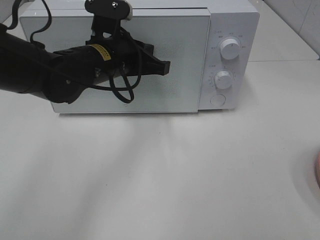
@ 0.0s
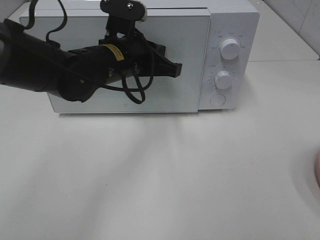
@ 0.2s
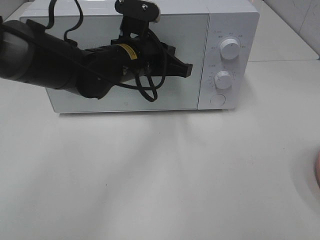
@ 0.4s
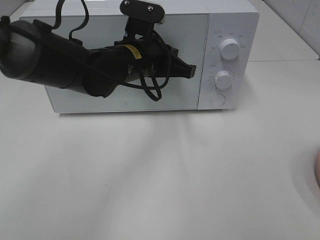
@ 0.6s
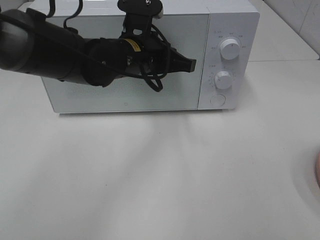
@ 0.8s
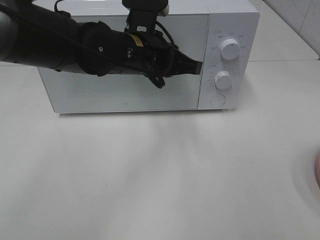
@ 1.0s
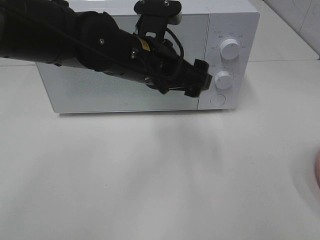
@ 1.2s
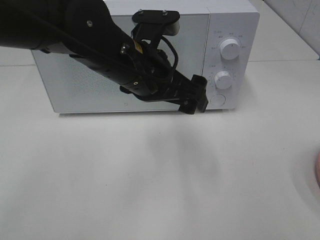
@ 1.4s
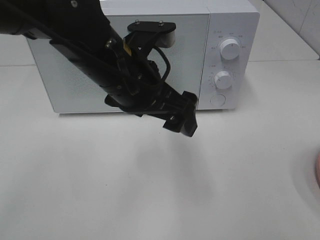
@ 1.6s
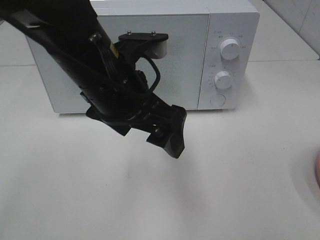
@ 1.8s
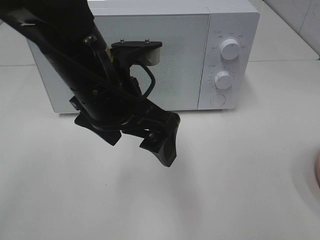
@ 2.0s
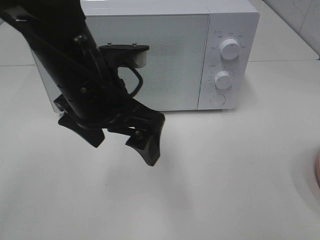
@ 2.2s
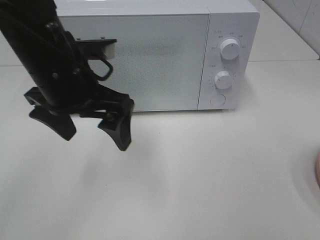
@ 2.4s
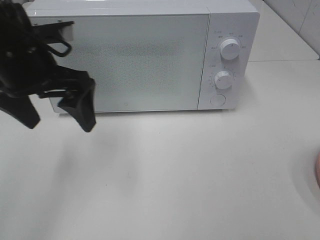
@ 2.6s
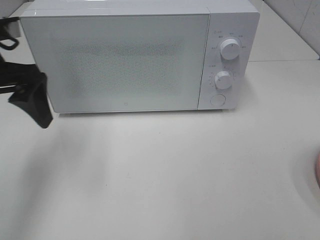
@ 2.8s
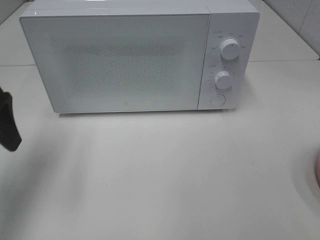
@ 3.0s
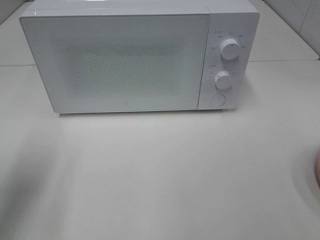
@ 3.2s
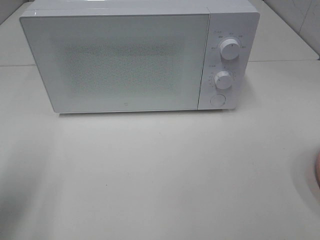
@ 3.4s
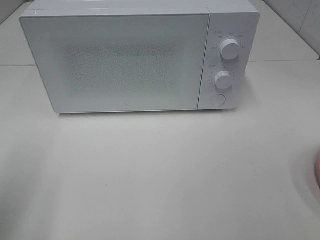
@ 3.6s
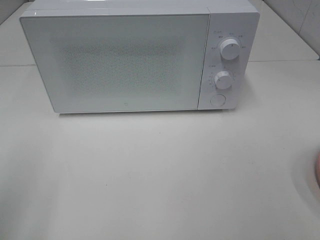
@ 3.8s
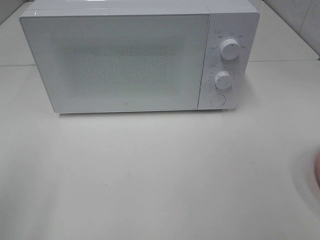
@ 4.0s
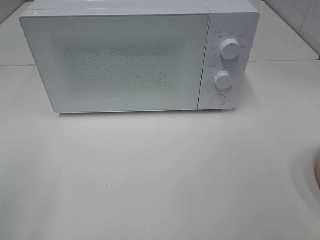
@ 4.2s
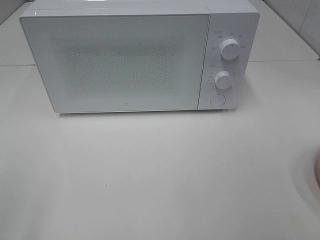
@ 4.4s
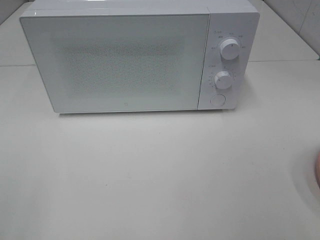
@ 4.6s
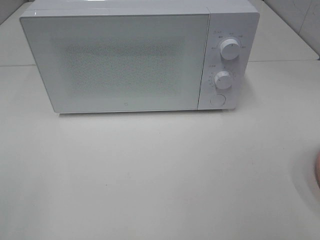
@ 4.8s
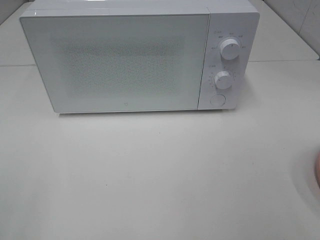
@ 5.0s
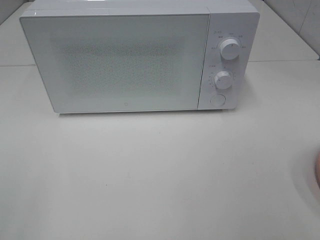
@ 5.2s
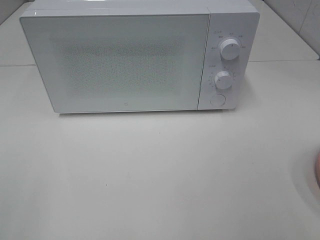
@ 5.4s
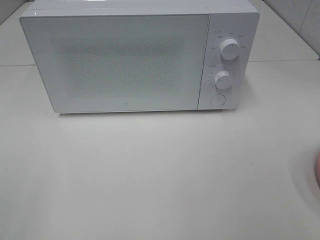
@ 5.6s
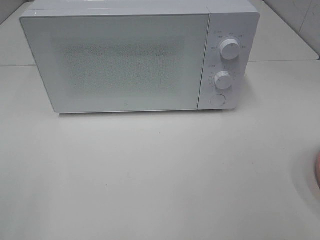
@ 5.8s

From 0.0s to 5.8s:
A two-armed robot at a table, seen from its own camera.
Task of the whole recording: Heat the burger.
From 0.0s to 1.4s: The left gripper is displaced backward by roughly 5 cm, and opens.
From 1.4s to 2.8s: The left gripper heads to the left, covering some 20 cm.
From 2.8s to 4.4s: The left gripper shifts approximately 25 cm backward.

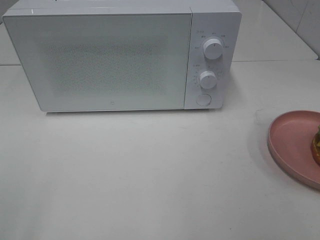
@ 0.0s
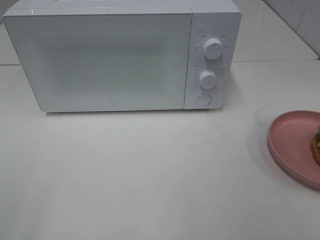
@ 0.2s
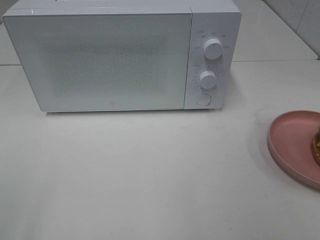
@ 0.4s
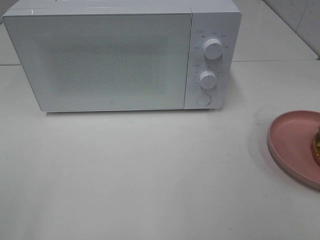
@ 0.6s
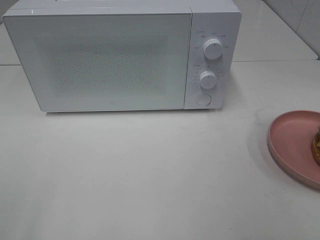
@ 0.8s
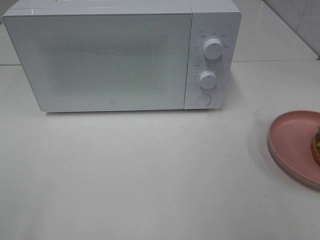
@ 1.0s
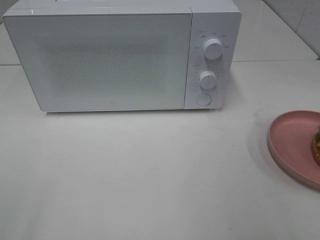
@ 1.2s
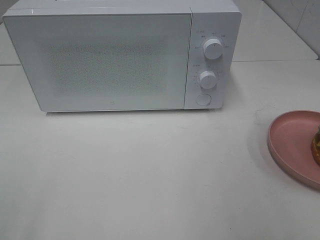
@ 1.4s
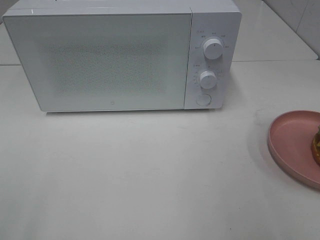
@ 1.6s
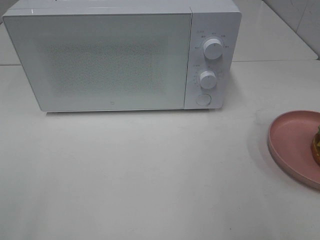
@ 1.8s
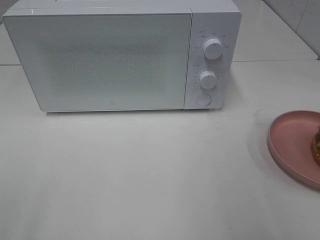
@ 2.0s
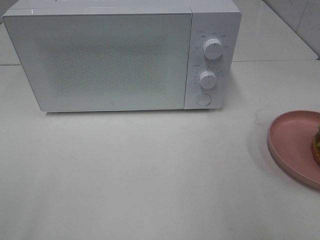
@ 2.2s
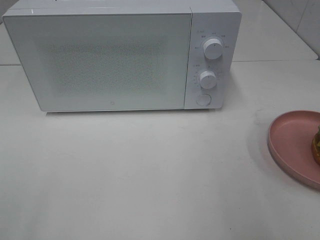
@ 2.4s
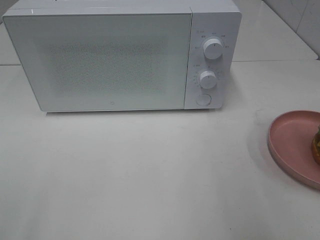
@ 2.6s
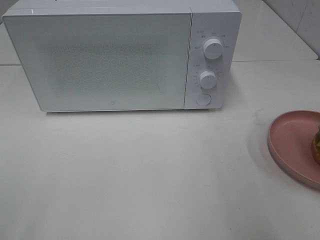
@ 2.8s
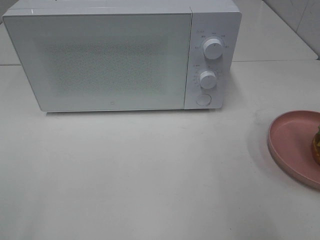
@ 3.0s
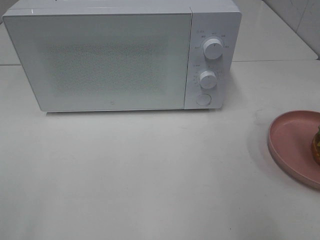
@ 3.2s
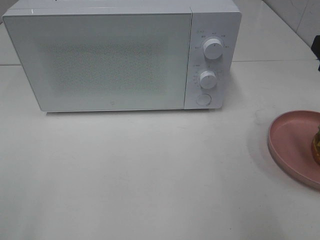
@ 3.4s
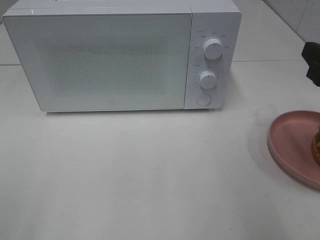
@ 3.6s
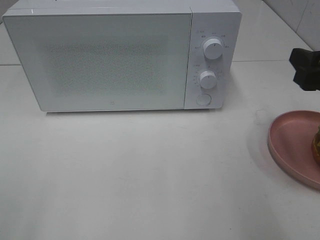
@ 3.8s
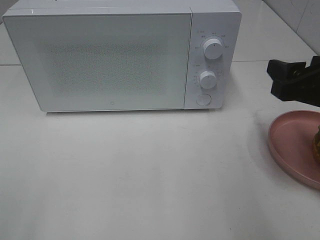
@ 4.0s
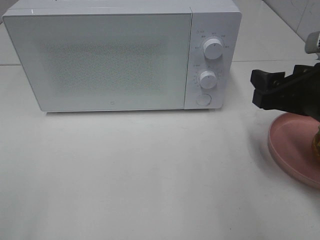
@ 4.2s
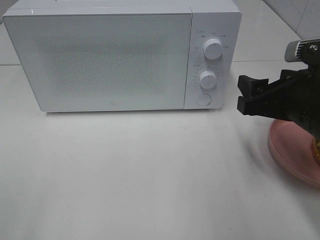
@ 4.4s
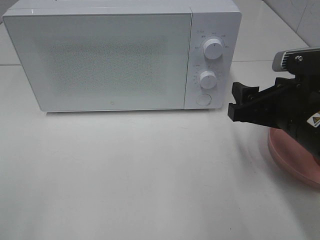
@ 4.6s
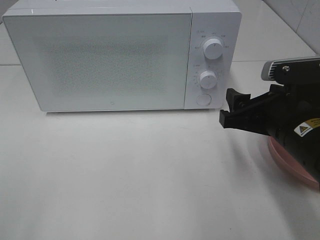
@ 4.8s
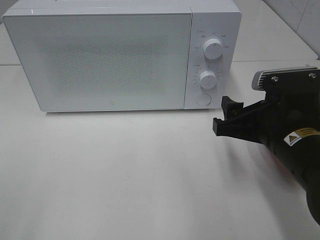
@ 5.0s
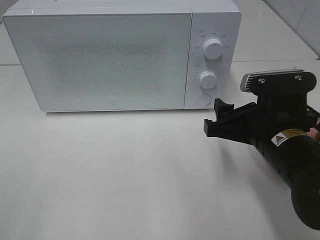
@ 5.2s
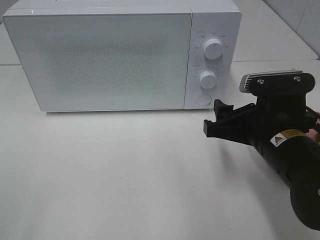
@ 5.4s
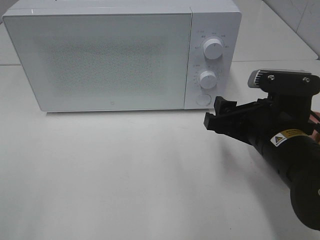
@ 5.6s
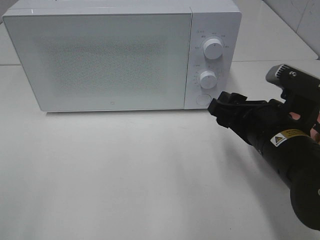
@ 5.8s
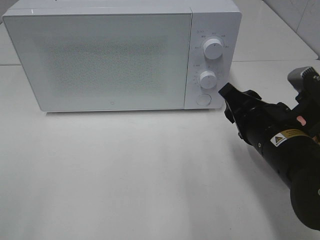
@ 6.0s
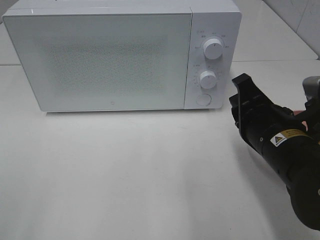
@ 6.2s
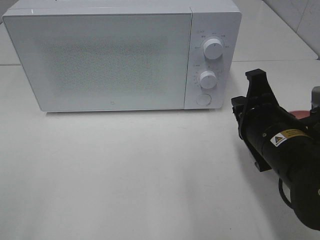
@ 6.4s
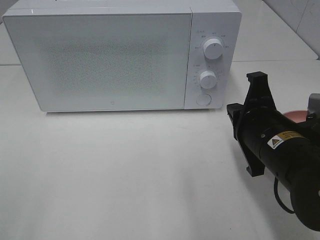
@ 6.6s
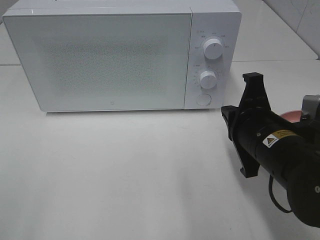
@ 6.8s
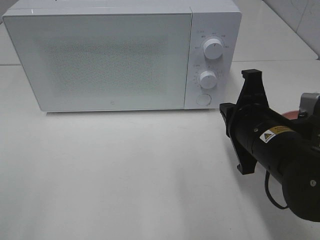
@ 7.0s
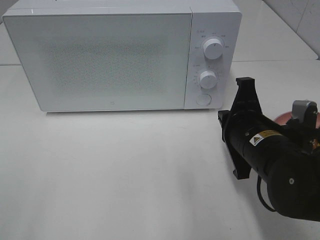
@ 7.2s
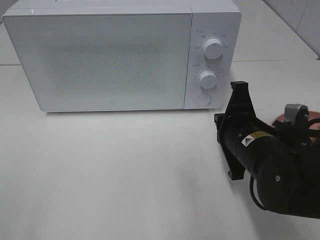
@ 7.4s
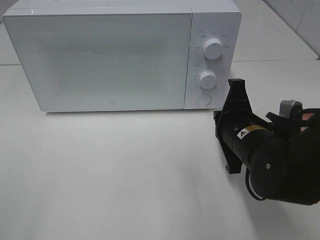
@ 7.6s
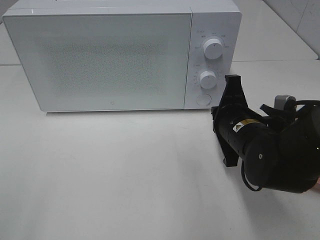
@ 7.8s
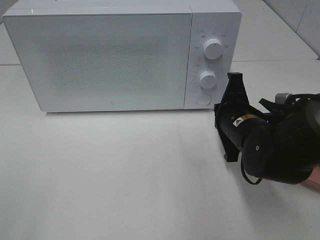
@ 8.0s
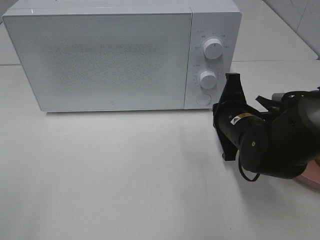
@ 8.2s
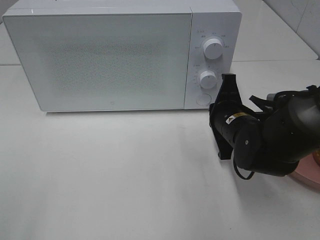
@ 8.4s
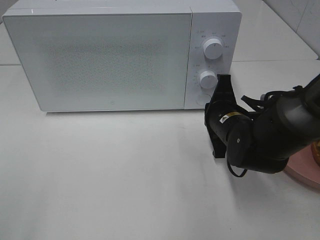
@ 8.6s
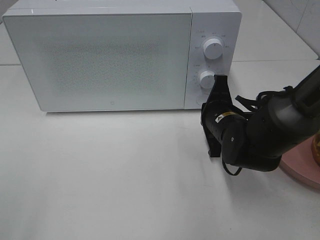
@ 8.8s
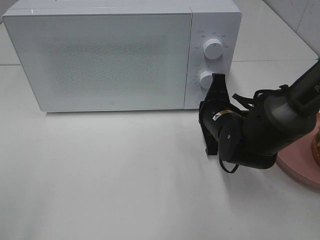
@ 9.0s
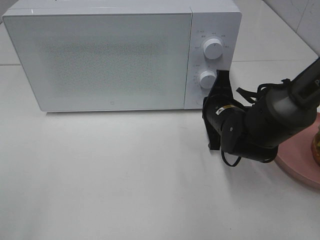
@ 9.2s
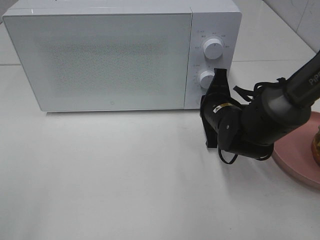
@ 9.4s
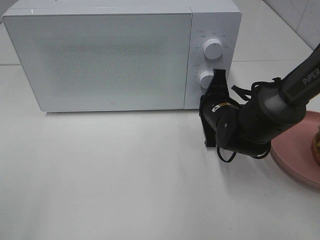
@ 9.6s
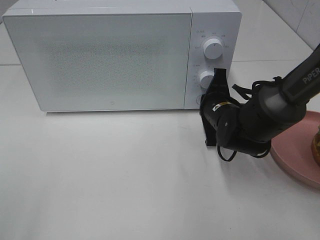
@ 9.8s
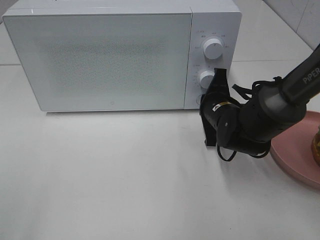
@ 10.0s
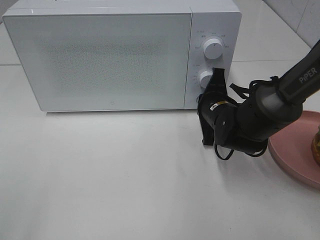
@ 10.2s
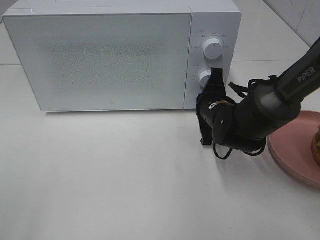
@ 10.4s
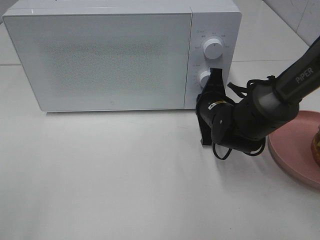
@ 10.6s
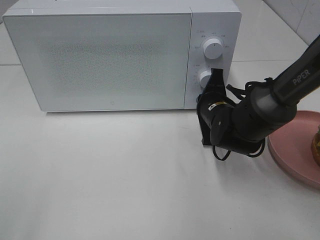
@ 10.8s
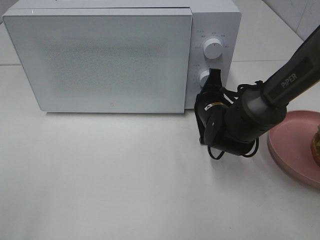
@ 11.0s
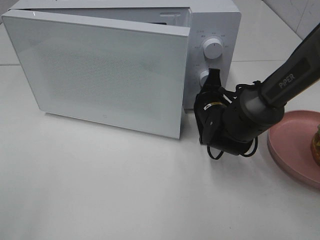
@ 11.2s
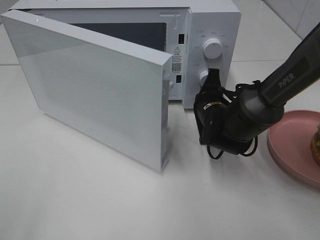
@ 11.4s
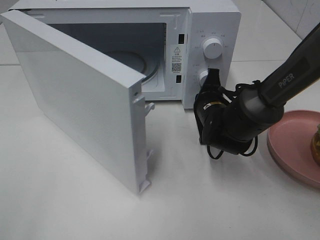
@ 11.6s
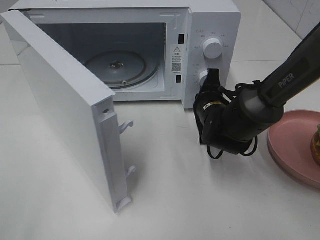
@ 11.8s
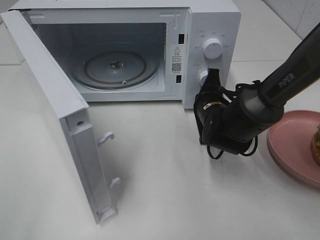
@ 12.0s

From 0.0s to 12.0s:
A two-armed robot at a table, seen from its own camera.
Task of the whole recording: Heat the burger.
From 3.0s to 4.4s: The right gripper moves downward and to the left, some 10 cm.
From 4.4s to 6.0s: The right gripper moves roughly 5 cm.
From 6.0s to 7.6s: The right gripper shifts by some 5 cm, and closes up.
From 7.6s to 9.0s: The right gripper is displaced forward by roughly 5 cm.
From 9.0s to 10.4s: There are only small adjustments of the grippers.

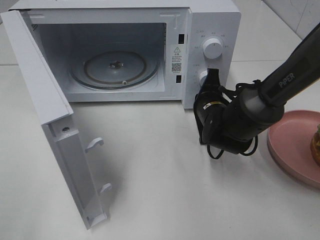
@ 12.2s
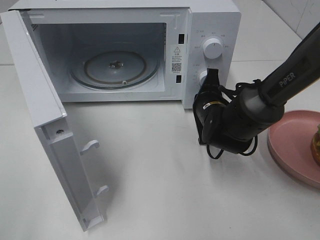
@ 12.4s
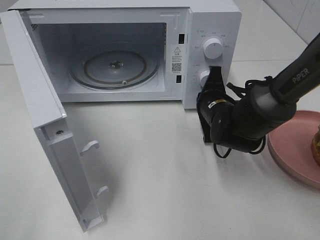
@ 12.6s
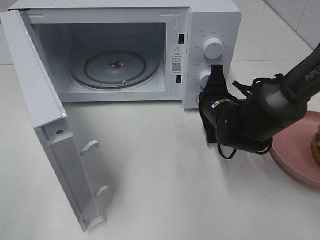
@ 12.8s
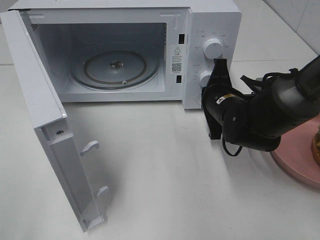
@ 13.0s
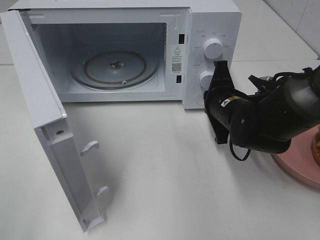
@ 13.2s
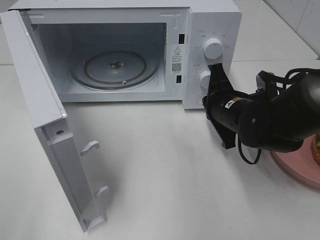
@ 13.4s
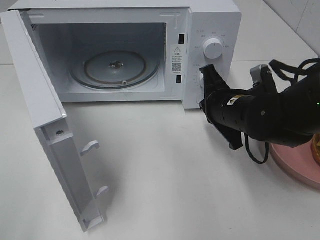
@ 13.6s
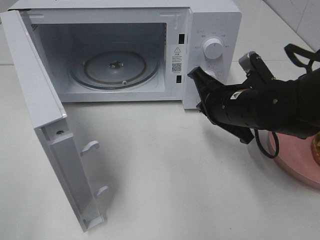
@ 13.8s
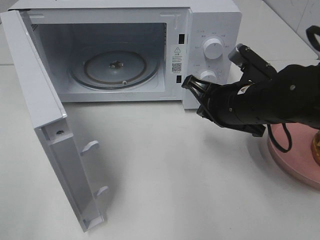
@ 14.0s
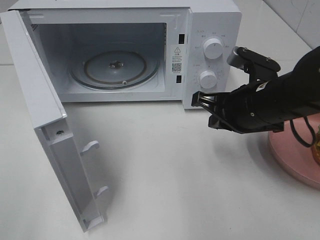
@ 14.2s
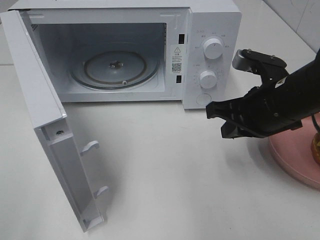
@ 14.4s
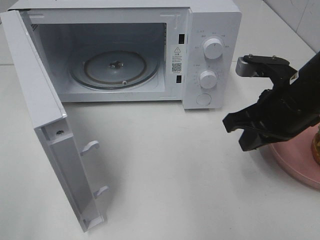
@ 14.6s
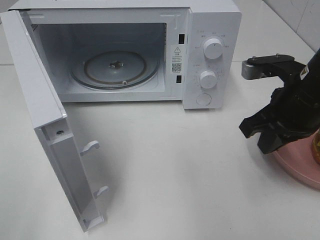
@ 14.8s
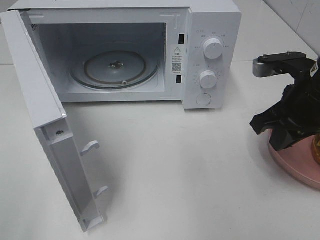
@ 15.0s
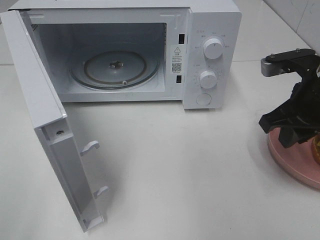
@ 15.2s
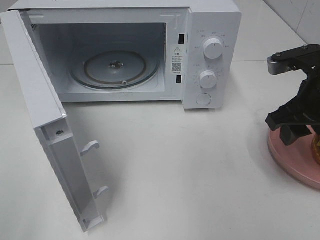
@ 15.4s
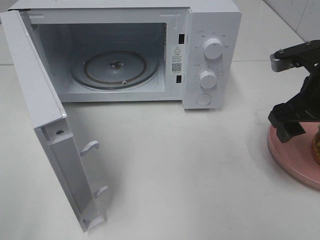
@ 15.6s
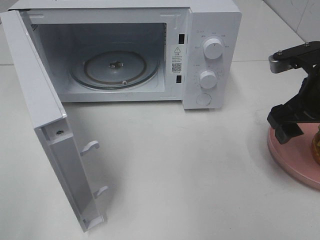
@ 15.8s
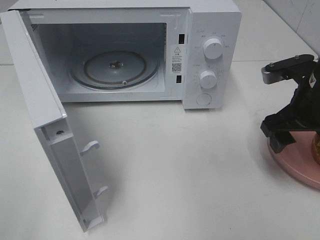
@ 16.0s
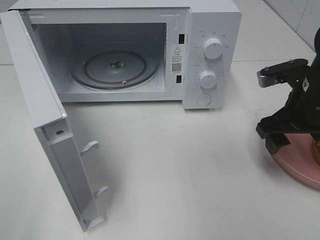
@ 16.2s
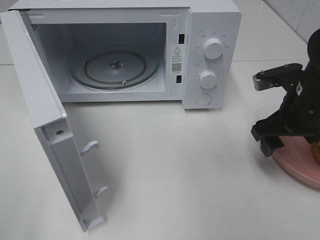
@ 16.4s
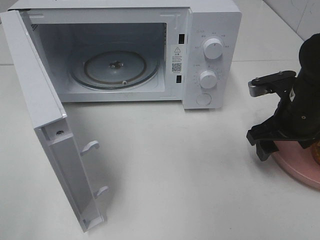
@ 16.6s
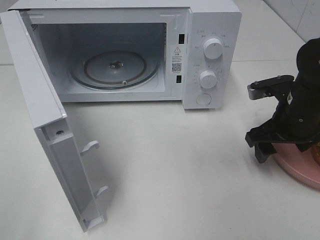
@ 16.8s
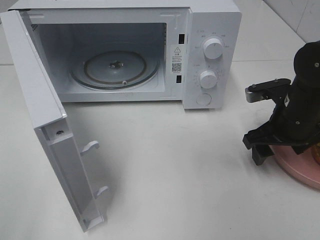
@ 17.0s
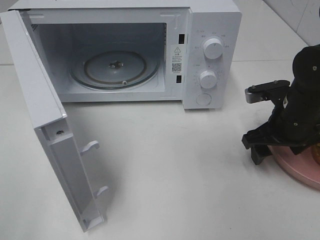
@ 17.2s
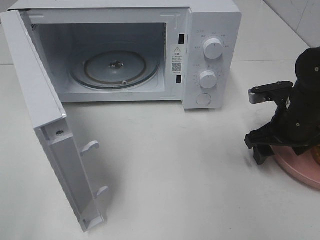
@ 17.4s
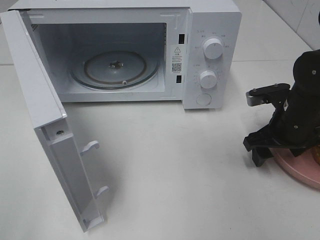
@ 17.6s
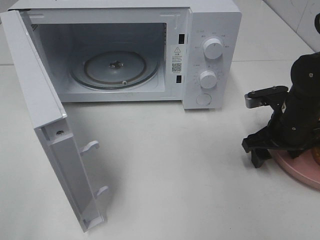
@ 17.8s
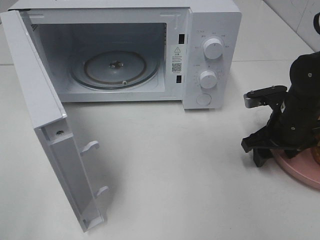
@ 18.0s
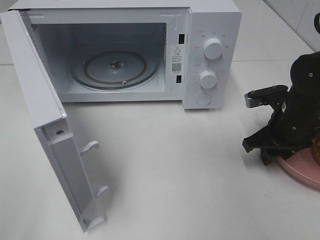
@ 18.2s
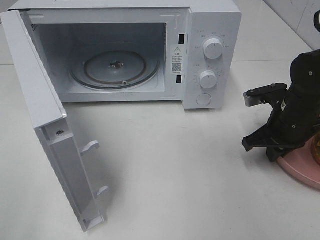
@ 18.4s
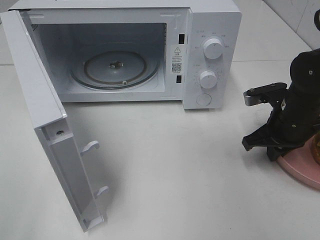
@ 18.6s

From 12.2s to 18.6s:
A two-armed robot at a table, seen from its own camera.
Task of the whole recording: Heat the burger.
From 12.2s to 13.8s: The right gripper heads upward and backward, covering roughly 10 cm.
From 13.8s to 15.4s: The right gripper moves to the right and upward, roughly 10 cm, and opens up.
From 15.4s to 17.0s: The right gripper moves downward, roughly 10 cm.
From 17.0s to 18.6s: The right gripper closes.
